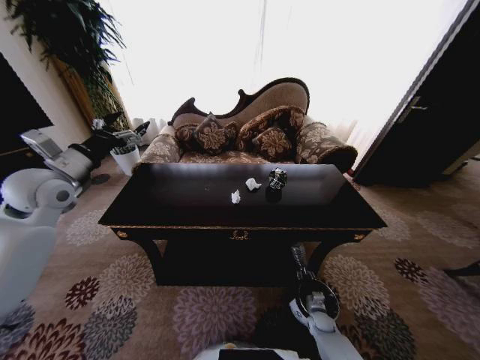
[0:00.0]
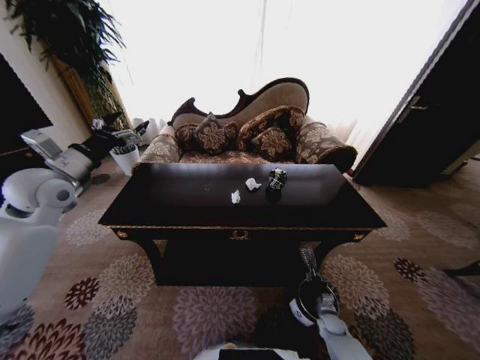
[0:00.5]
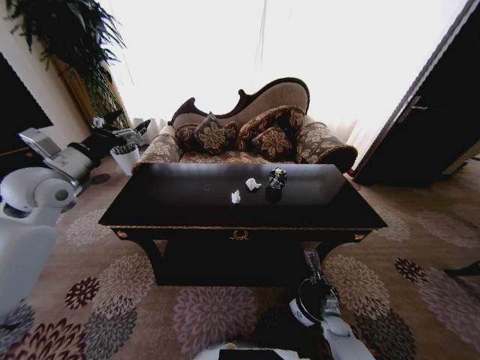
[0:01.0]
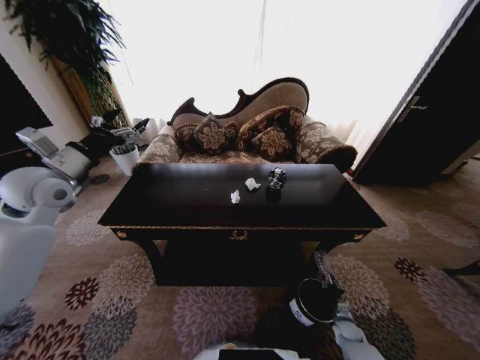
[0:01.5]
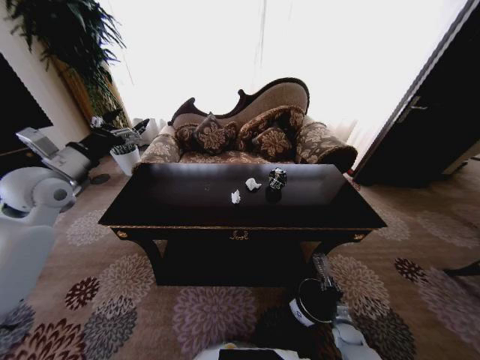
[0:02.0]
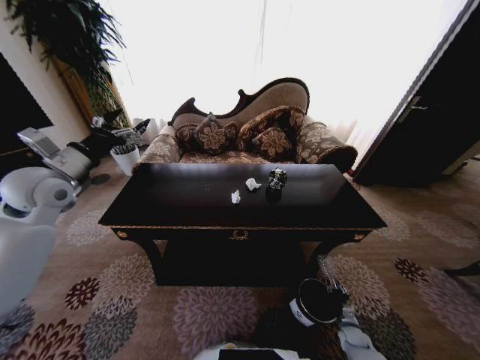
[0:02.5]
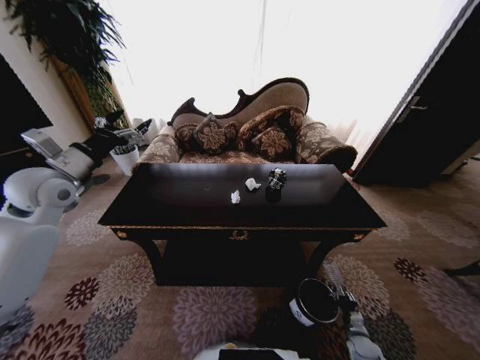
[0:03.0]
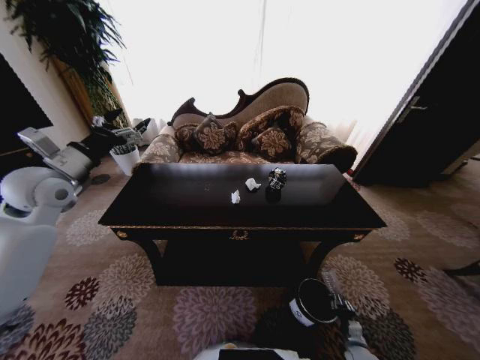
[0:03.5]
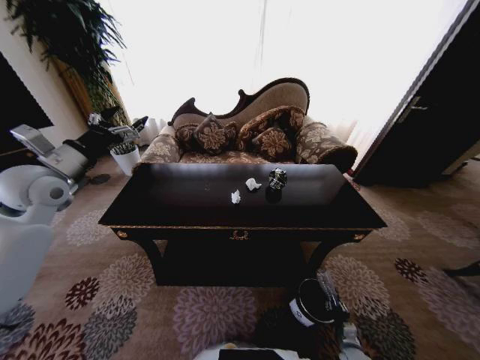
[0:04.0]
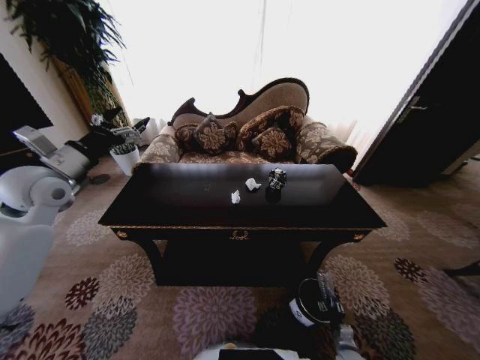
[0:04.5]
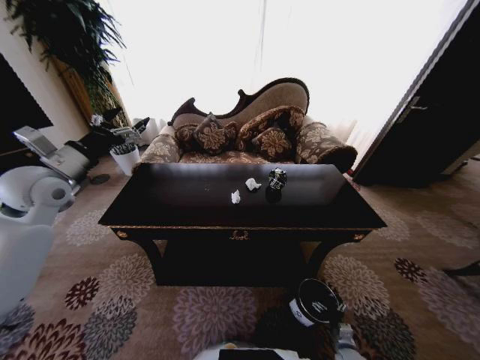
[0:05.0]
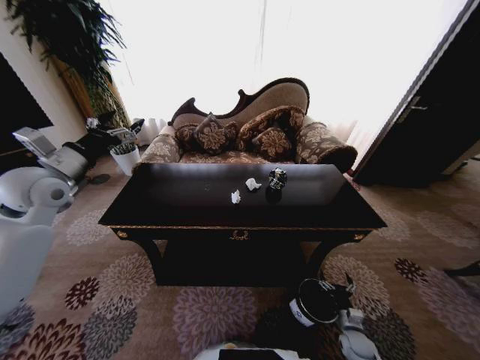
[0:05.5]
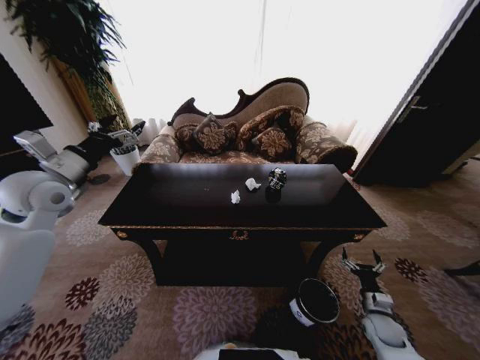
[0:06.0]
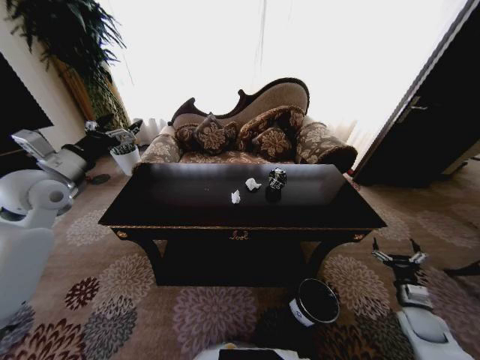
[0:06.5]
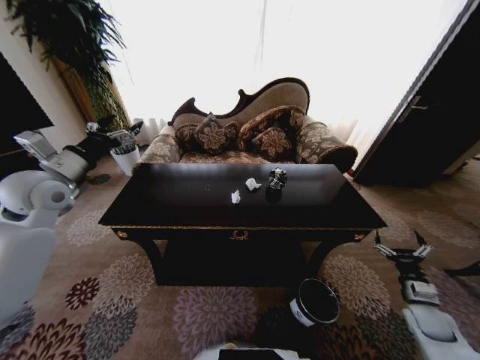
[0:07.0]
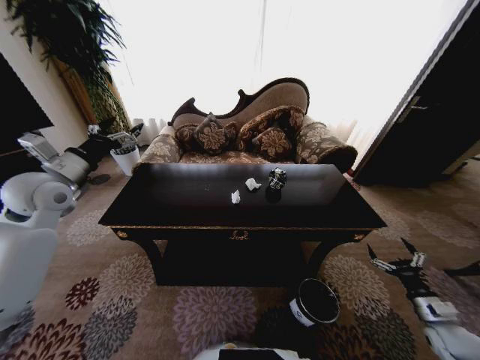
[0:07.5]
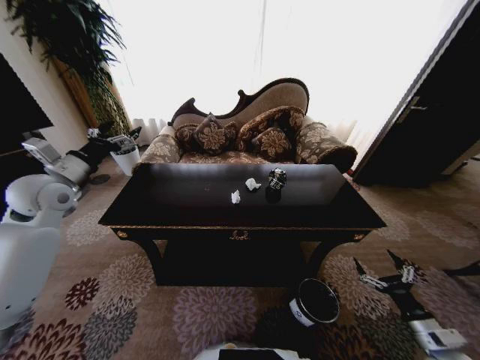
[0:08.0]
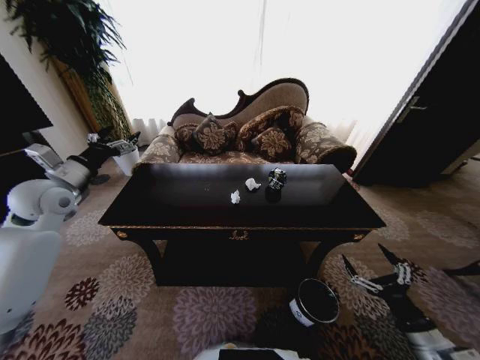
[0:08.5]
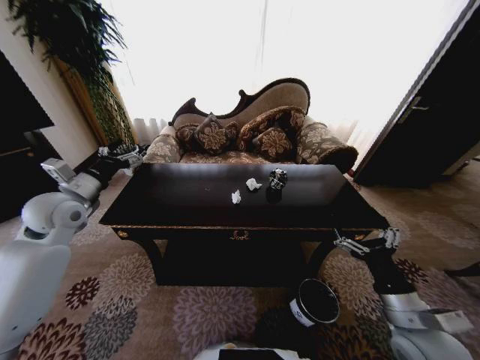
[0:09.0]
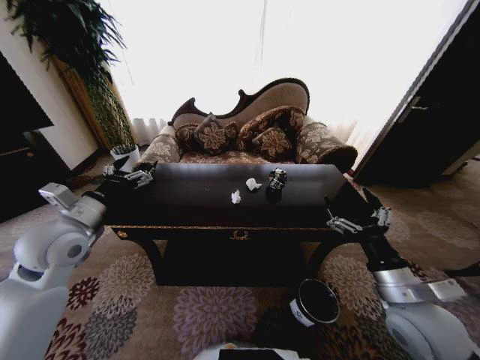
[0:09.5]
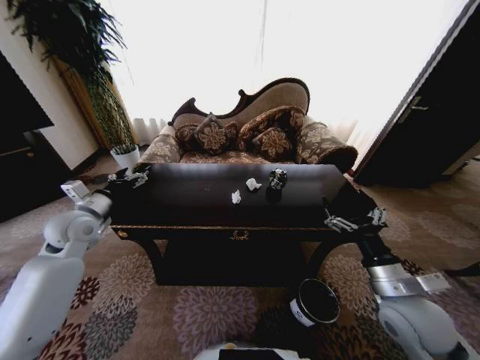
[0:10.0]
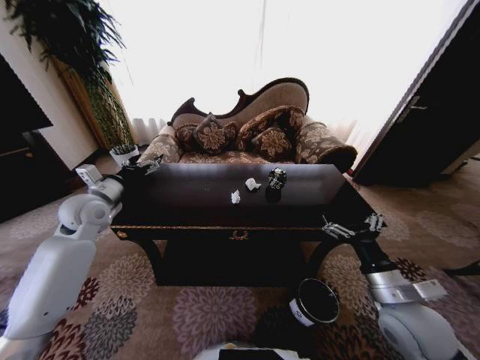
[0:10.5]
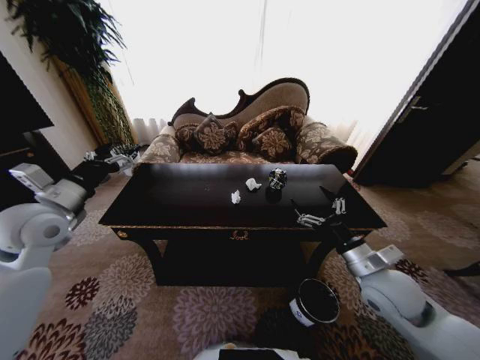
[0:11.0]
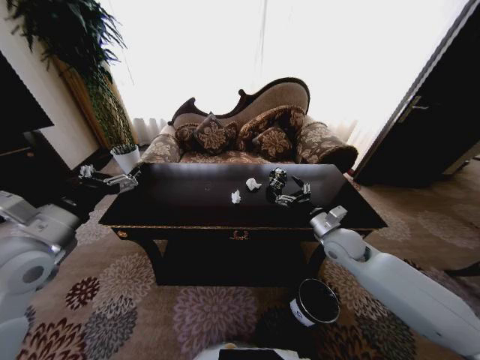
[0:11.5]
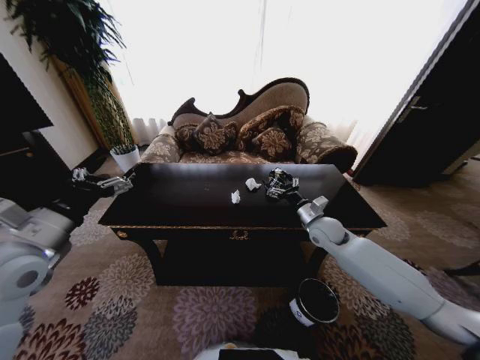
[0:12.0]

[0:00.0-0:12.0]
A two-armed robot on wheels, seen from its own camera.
Task of the whole recording: Move to the front of the table and place the trash on the table into the trash bin.
0:00.0 to 0:02.0: The right gripper shifts some 10 cm to the right.
0:02.0 to 0:04.0: The right gripper shifts approximately 5 cm backward.
0:04.0 to 0:06.0: The right gripper heads upward and forward, covering roughly 15 cm, and opens its fingers.
0:06.0 to 0:08.0: The right gripper shifts approximately 15 cm upward and backward.
0:08.0 to 0:10.0: The right gripper heads to the left, upward and forward, covering some 25 cm. Meanwhile the left gripper heads downward, covering about 10 cm, and reaches approximately 10 cm backward, then returns.
0:10.0 to 0:12.0: The right gripper moves forward, roughly 25 cm; the left gripper moves backward and upward, about 15 cm.

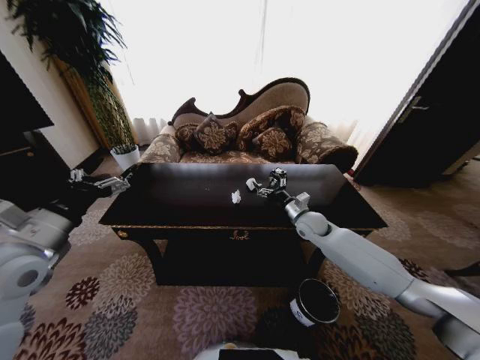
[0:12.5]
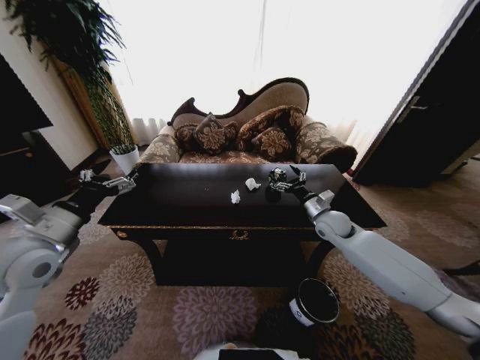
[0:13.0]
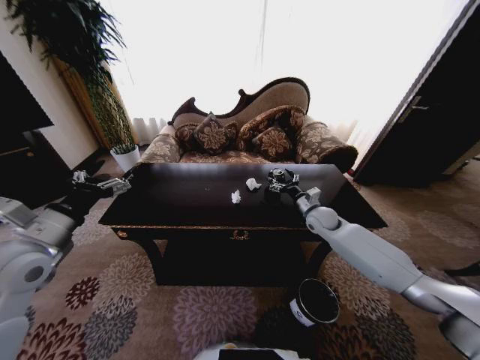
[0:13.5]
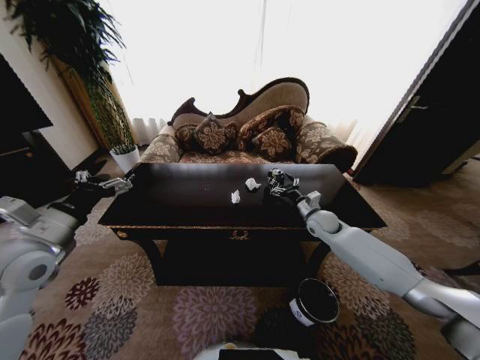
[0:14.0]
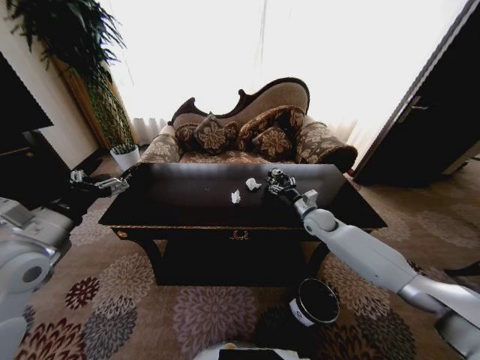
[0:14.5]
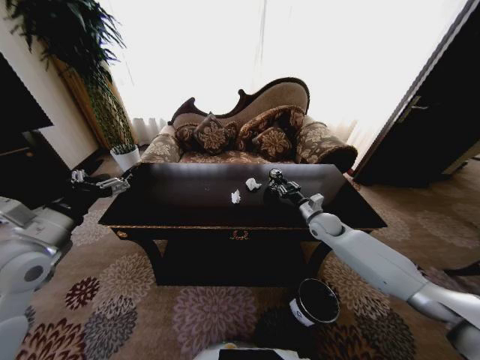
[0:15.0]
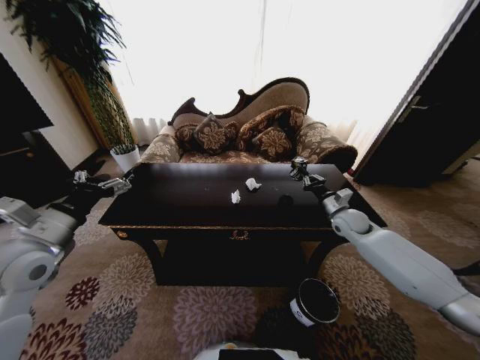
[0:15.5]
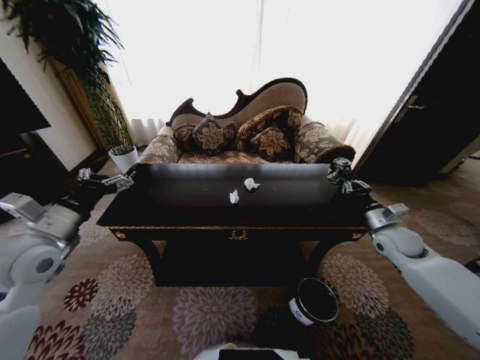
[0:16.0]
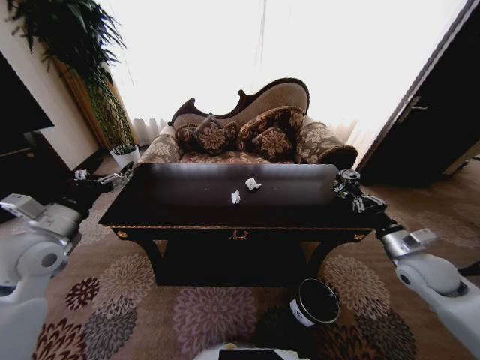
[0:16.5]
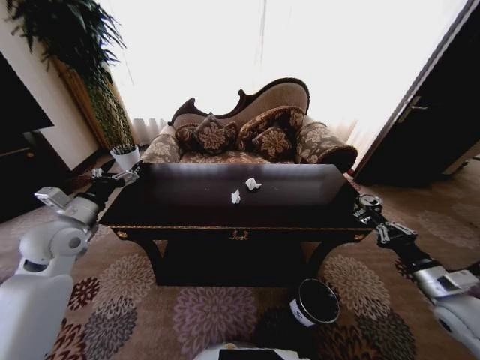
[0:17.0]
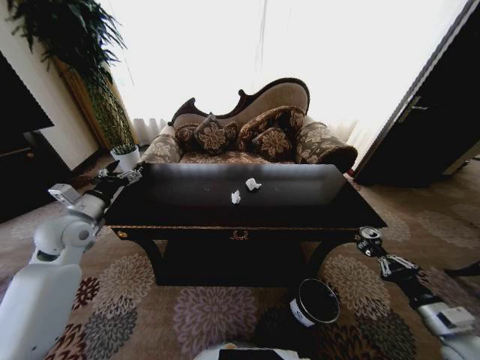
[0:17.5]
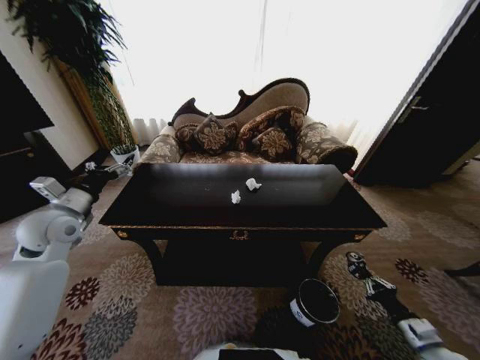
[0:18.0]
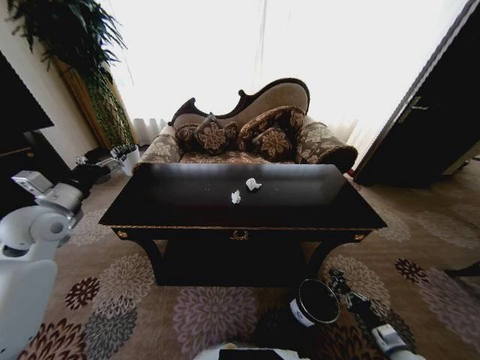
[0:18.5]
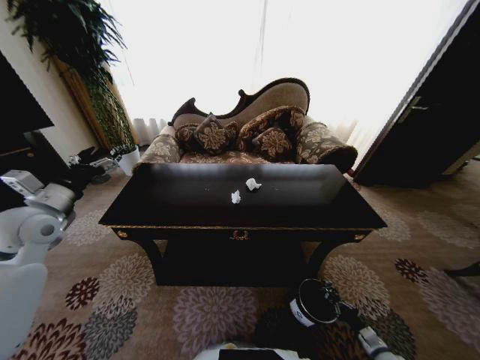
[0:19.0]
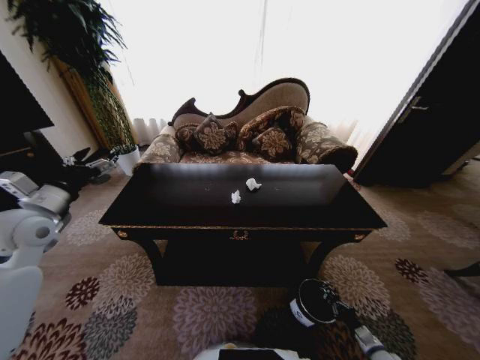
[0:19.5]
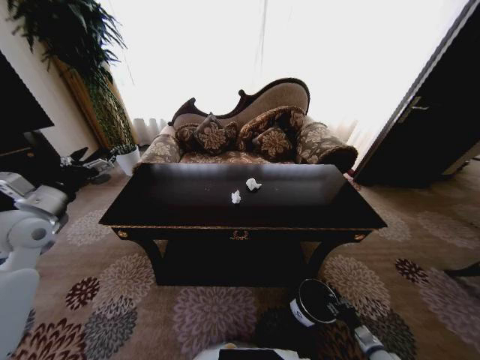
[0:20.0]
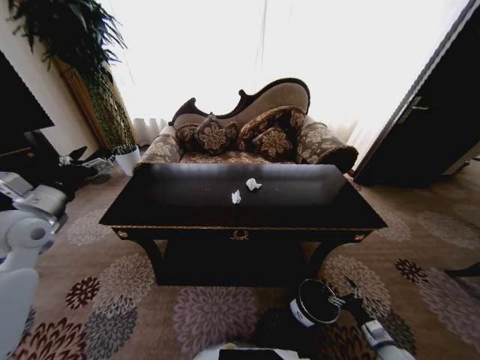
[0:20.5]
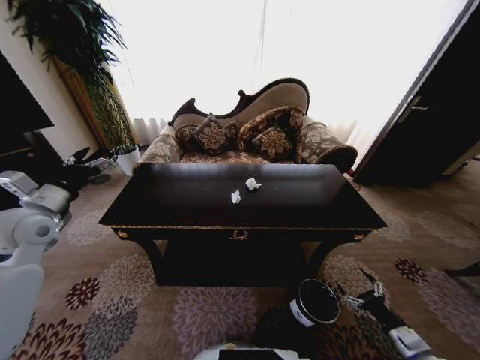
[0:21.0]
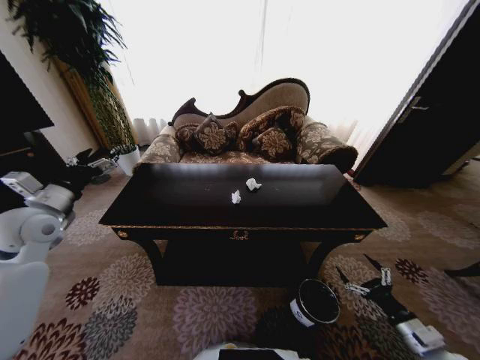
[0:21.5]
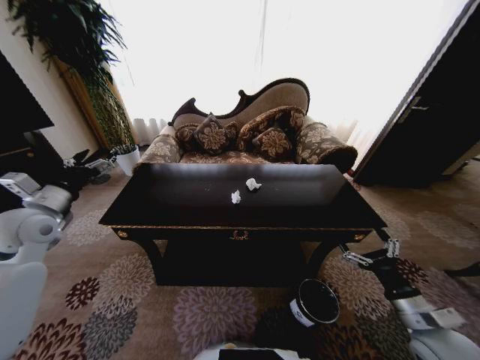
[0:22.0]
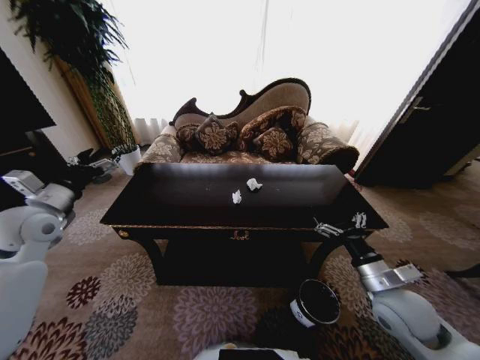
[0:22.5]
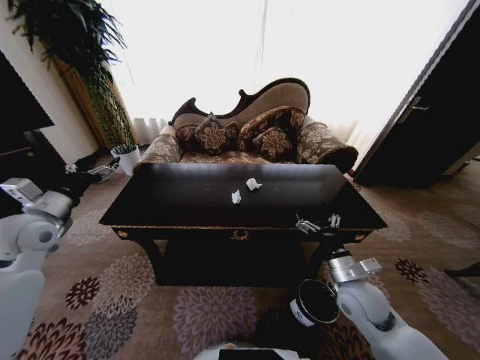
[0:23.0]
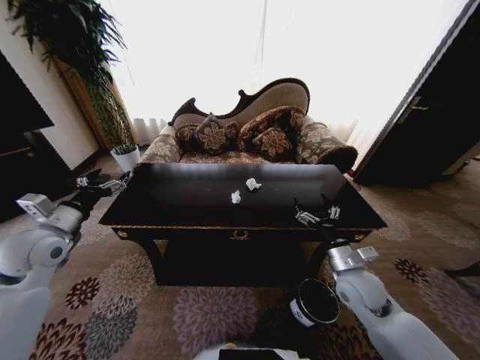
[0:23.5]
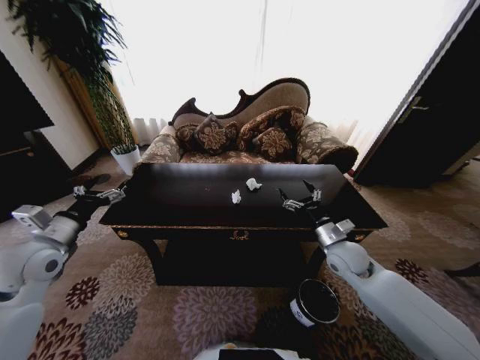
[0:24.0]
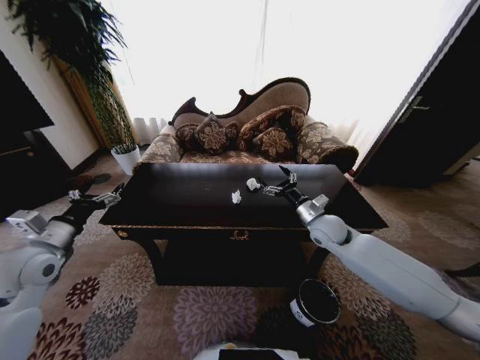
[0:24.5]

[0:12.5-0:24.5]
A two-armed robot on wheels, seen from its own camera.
Task of the whole recording: Move to the front of the table and place the trash on the table into the trash bin.
0:14.5 to 0:16.5: The right gripper travels backward and to the right by approximately 25 cm, and closes up.
0:16.5 to 0:18.5: The right gripper shifts some 30 cm downward and backward, while the left gripper heads forward, covering approximately 5 cm.
0:18.5 to 0:20.5: The right gripper opens up.
0:20.5 to 0:22.5: The right gripper is displaced upward and to the left by roughly 30 cm.
0:22.5 to 0:24.5: The left gripper moves backward and downward, roughly 10 cm; the right gripper heads forward, covering about 20 cm.

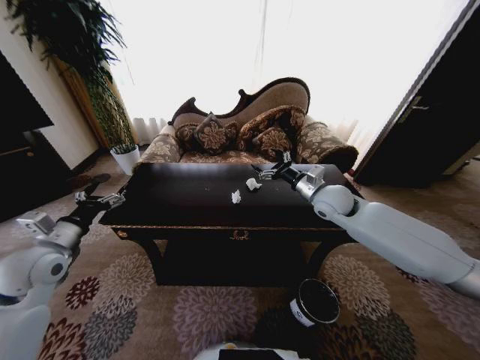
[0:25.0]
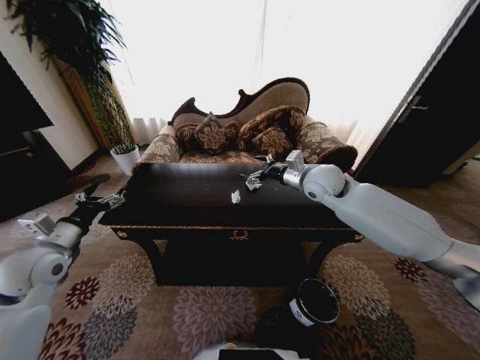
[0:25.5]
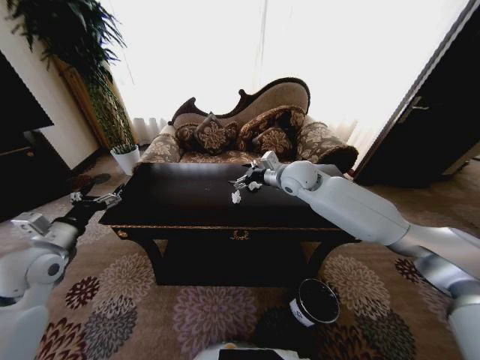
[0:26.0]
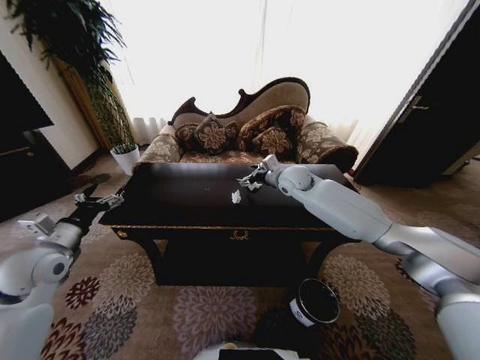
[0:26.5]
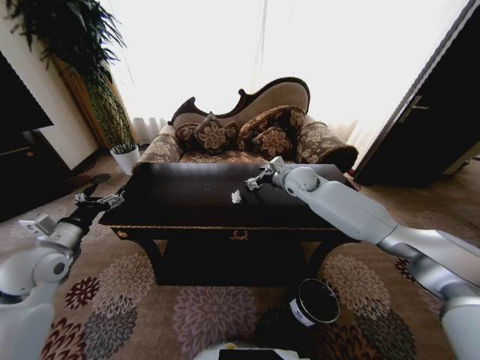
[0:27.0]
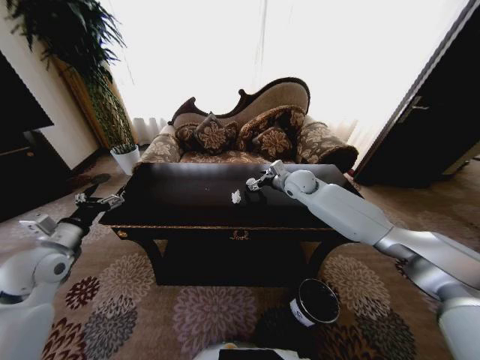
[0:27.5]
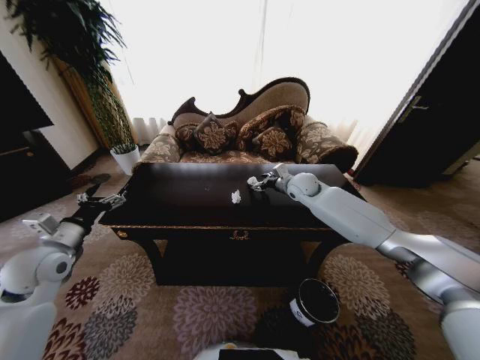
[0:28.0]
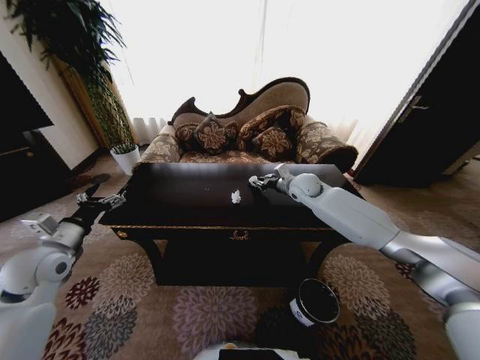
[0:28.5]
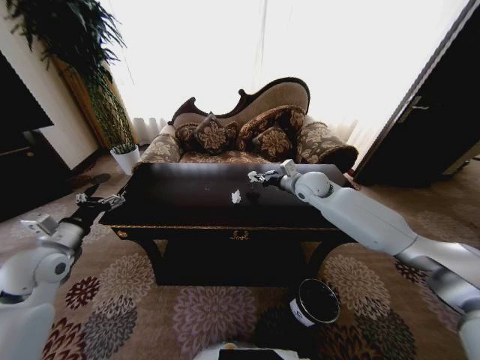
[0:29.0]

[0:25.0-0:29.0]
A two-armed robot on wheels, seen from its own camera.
Task of the whole recording: Move to the front of the table and place the trash on the table into the trash bin.
0:25.0 to 0:27.0: The right gripper moves forward and to the left, roughly 10 cm.
0:27.0 to 0:29.0: The right gripper closes up.
